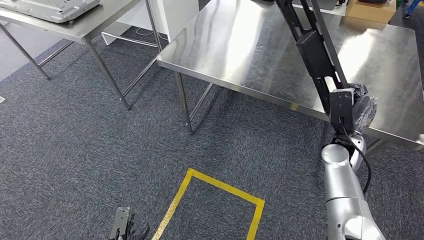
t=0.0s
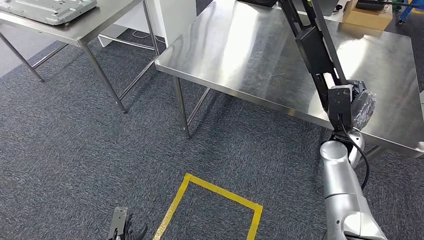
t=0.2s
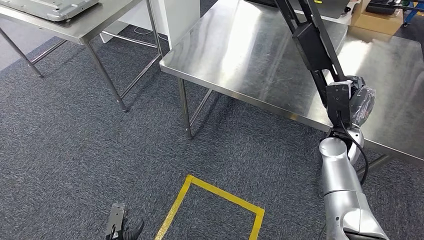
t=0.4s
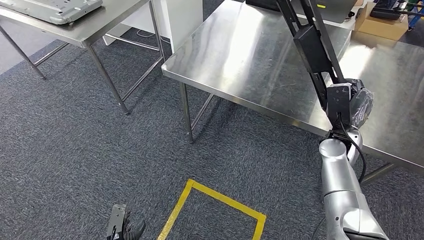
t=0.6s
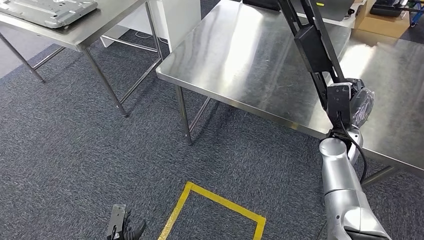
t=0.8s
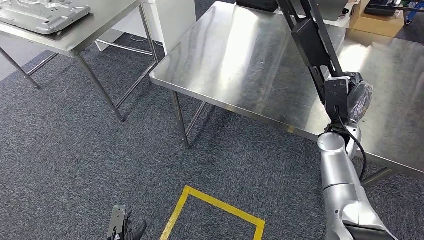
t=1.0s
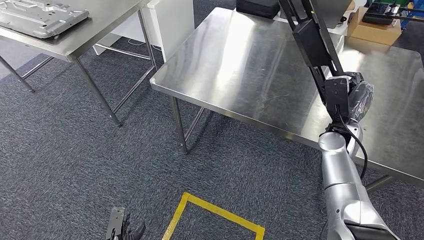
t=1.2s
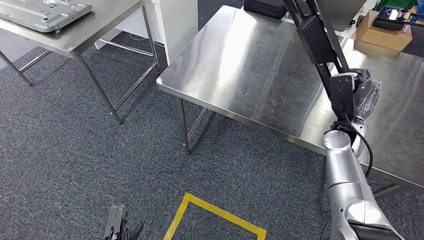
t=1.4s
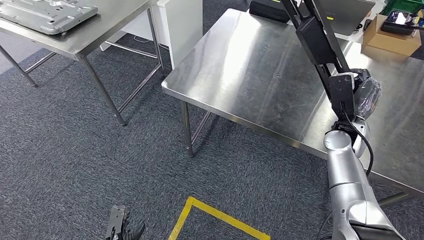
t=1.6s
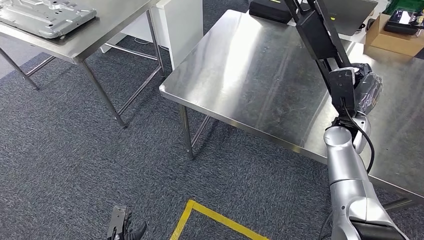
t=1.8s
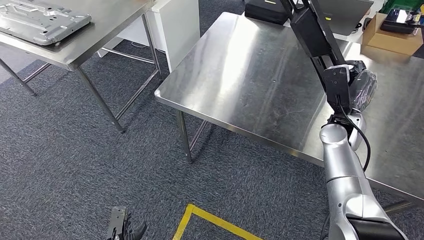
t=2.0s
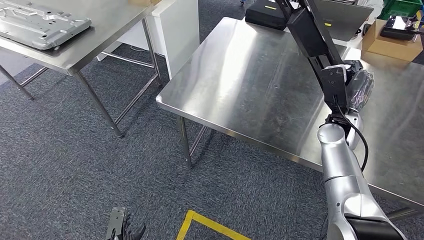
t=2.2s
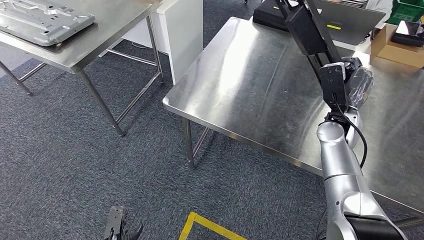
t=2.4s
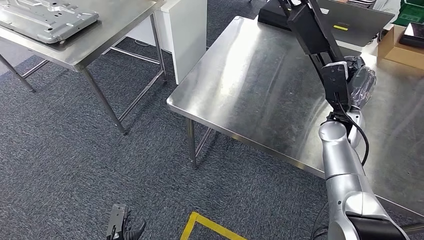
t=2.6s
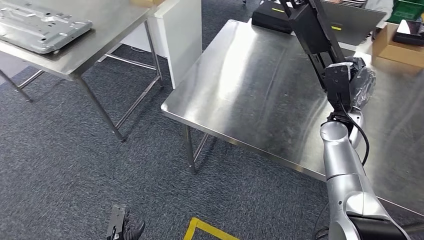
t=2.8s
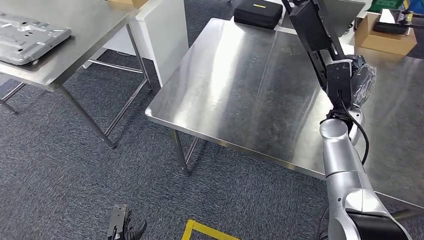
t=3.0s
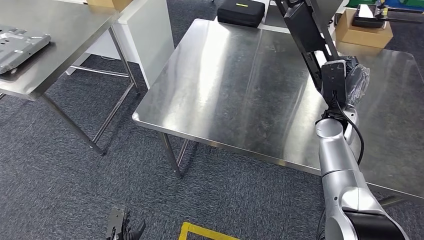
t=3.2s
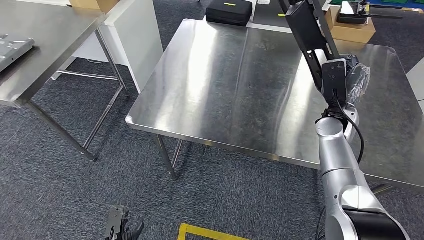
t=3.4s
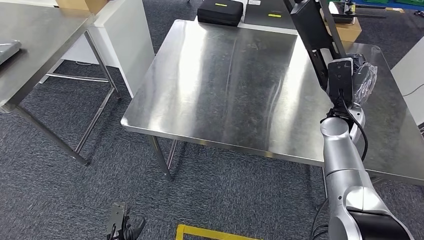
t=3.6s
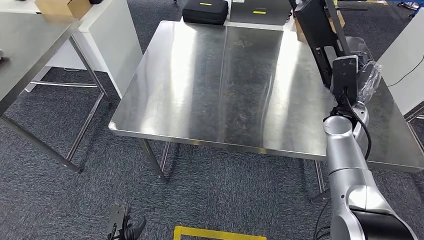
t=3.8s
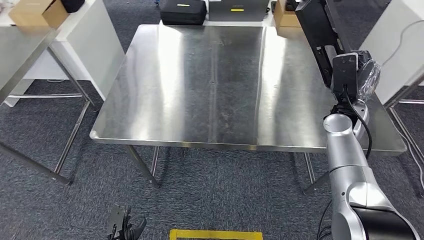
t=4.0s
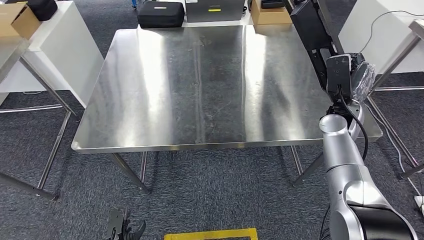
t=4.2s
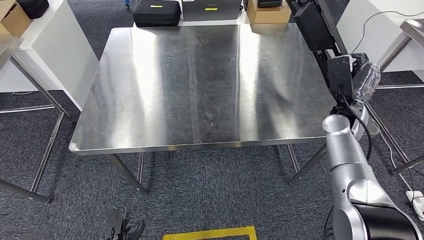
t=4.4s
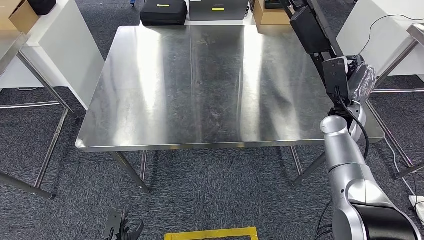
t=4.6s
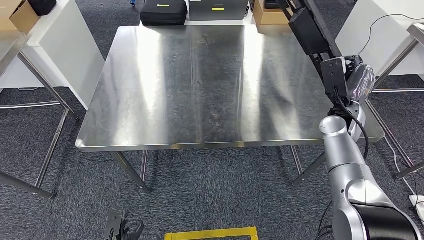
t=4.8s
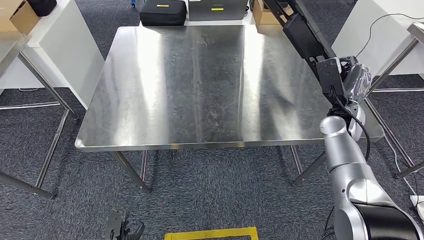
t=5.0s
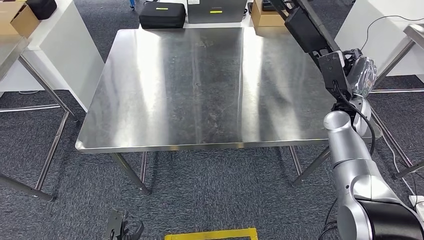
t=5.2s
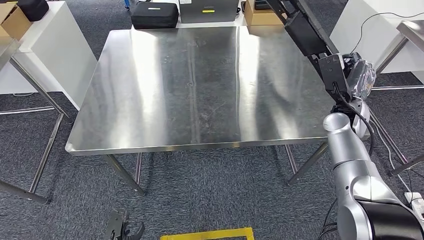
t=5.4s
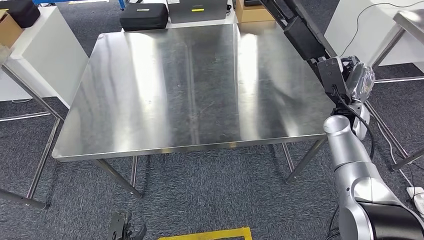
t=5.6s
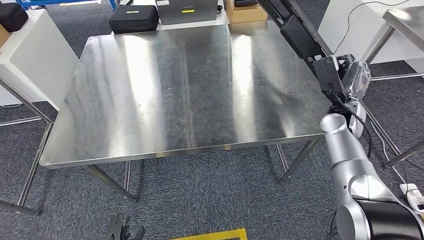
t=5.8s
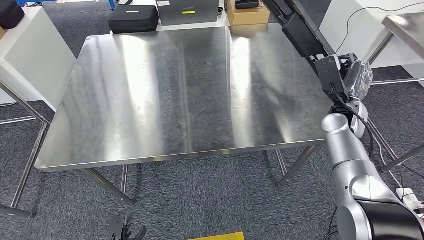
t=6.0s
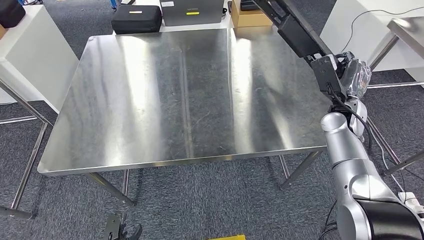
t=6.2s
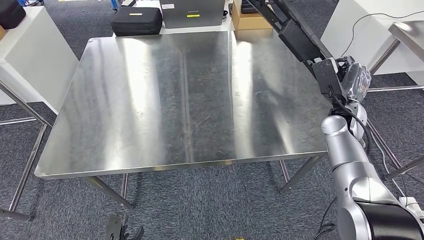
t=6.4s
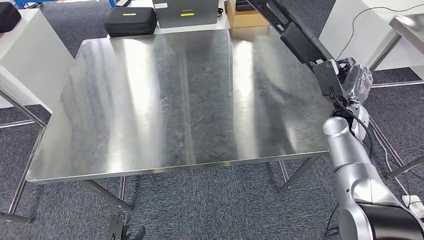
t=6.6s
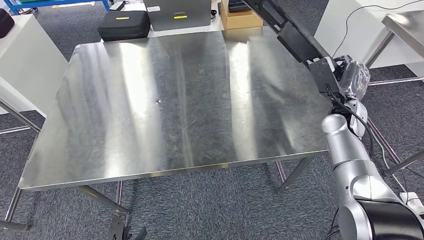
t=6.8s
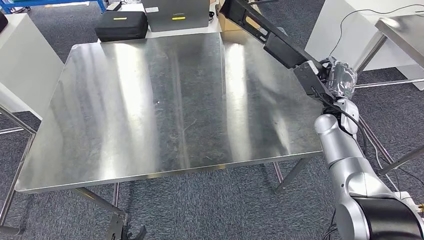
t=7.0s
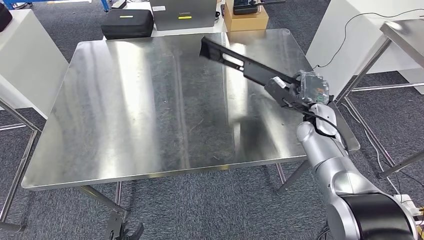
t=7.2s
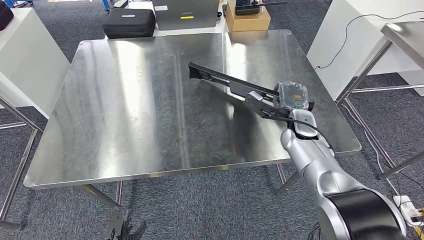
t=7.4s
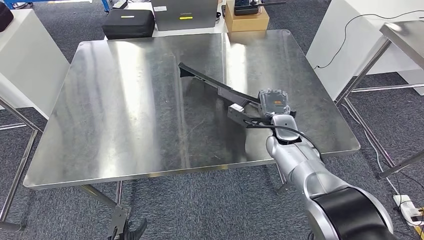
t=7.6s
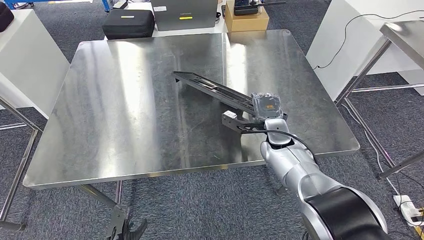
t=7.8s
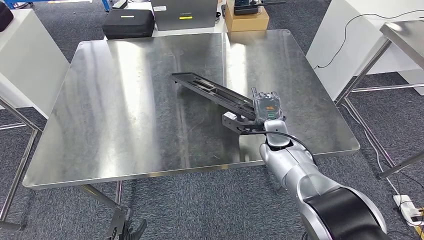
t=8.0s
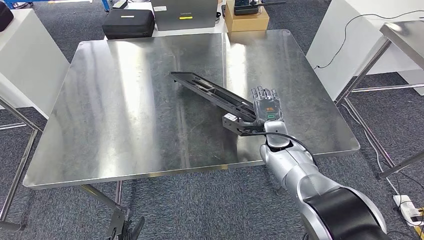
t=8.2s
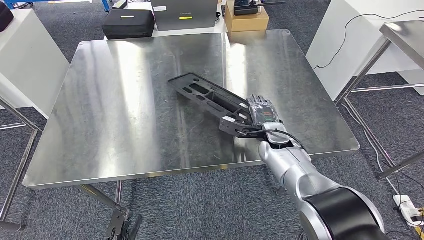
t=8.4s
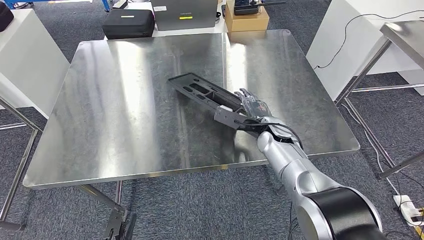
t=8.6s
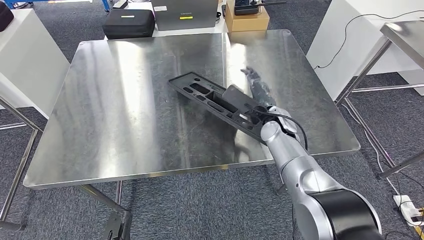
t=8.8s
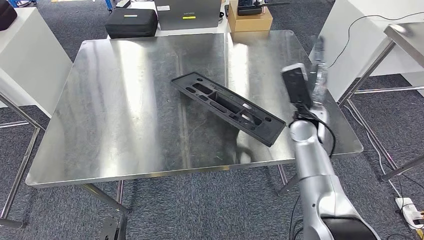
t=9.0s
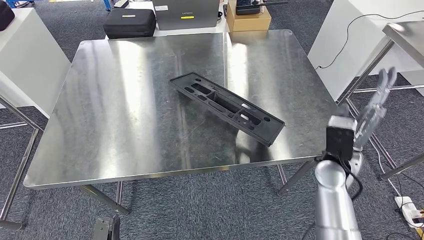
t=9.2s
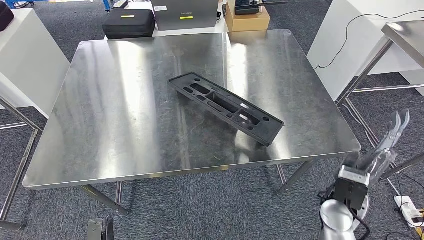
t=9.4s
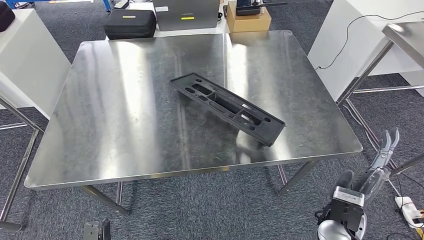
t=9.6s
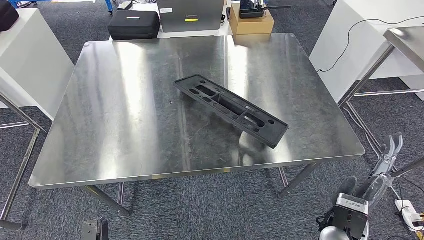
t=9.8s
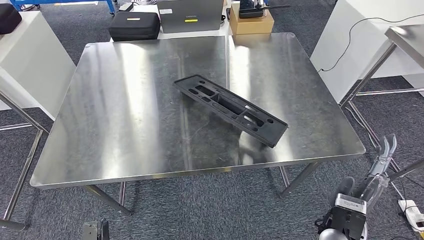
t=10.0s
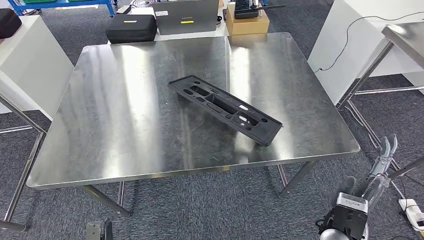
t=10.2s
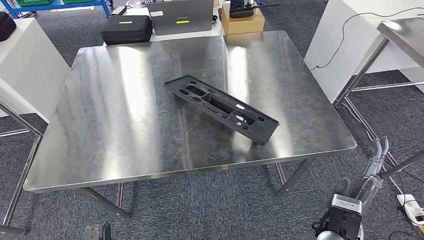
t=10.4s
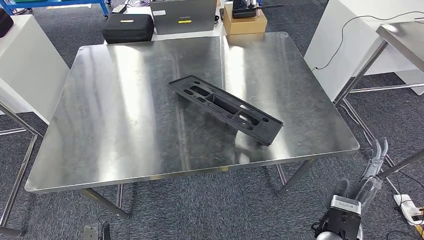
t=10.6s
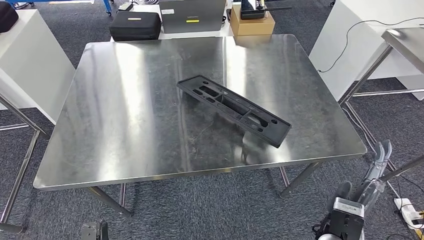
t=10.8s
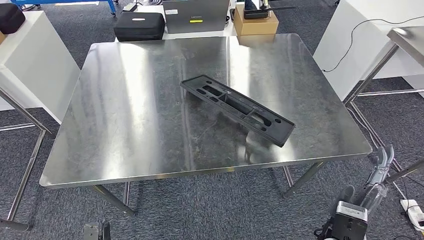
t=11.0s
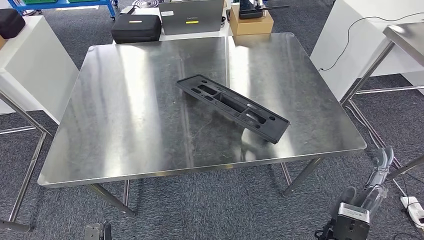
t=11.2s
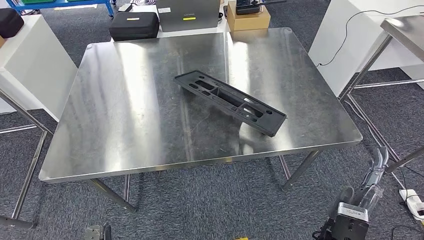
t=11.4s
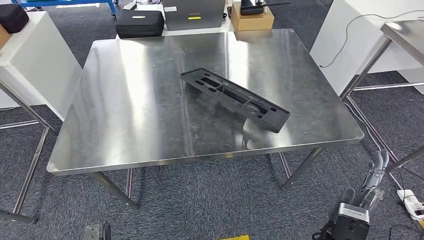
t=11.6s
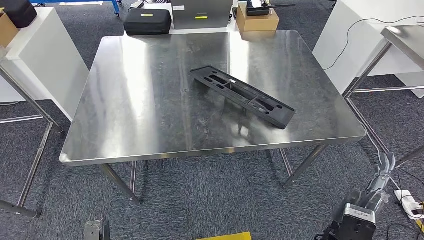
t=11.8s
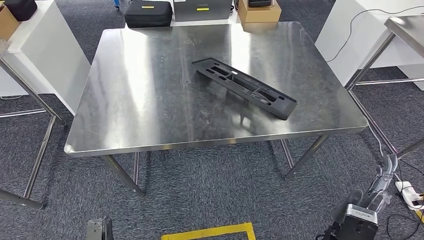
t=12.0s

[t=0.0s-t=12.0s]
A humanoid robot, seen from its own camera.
Step, t=0.0s to t=9.8s: Insert the large material into the corresponding hole on the workbench.
